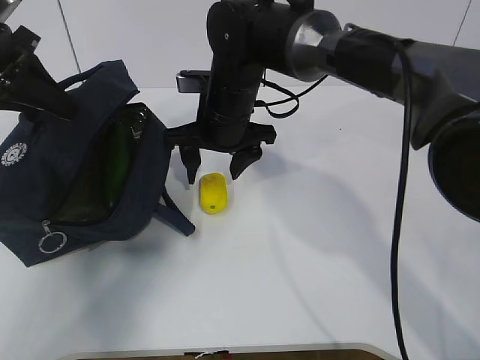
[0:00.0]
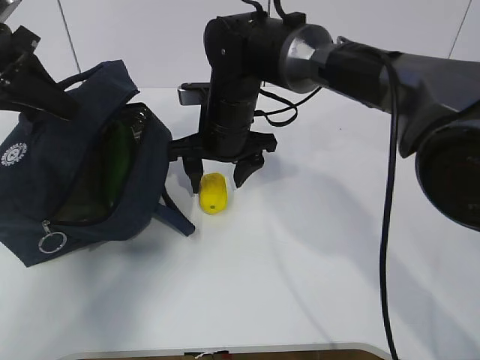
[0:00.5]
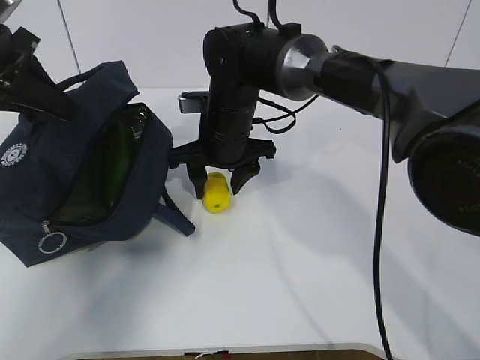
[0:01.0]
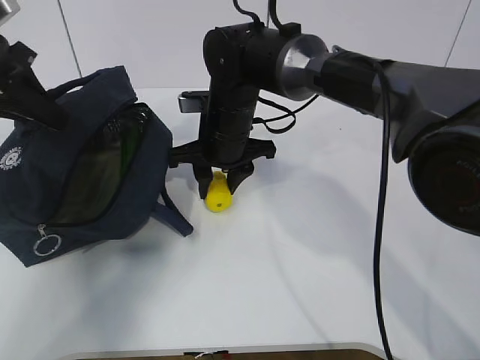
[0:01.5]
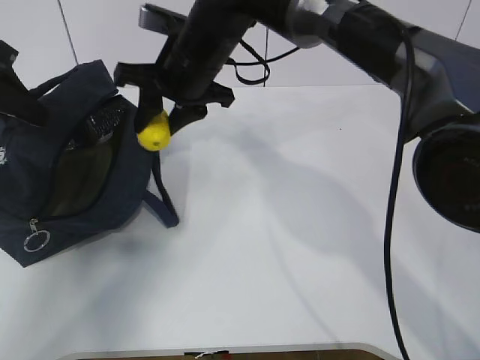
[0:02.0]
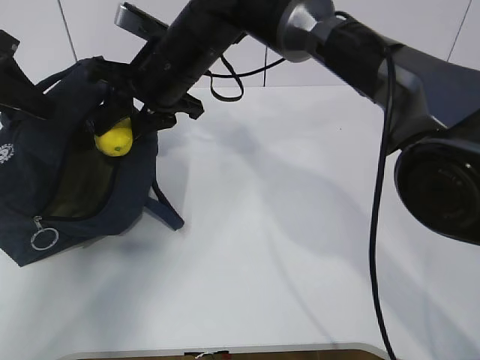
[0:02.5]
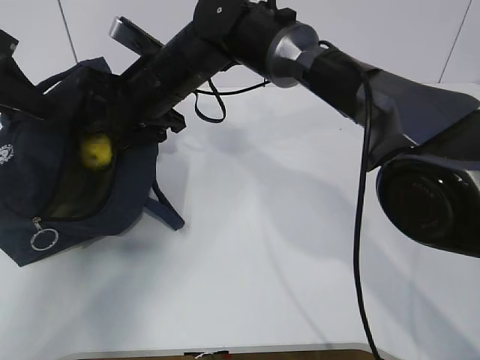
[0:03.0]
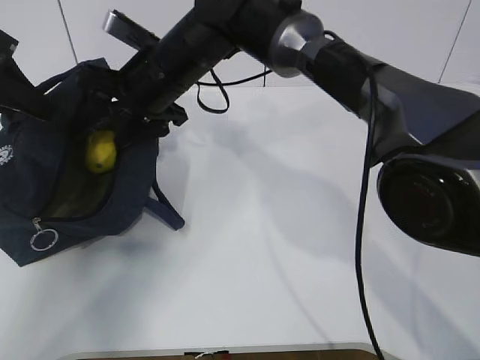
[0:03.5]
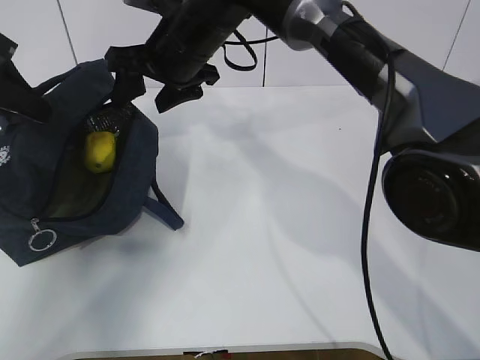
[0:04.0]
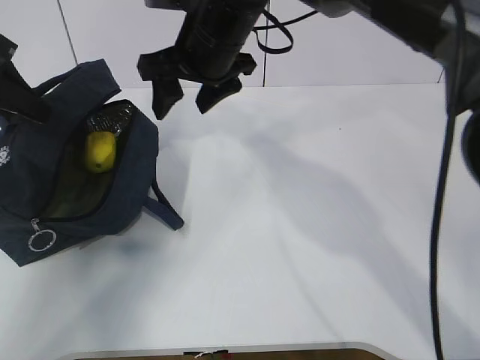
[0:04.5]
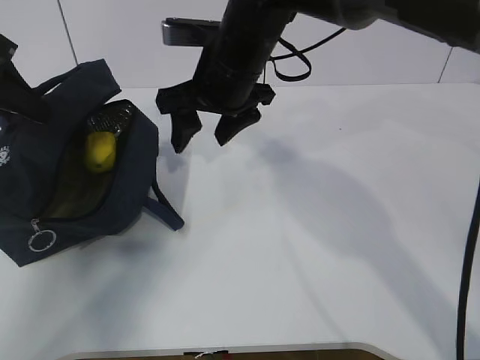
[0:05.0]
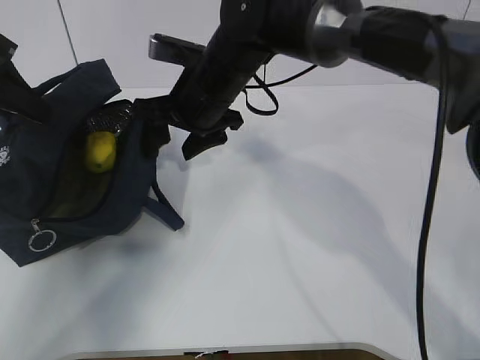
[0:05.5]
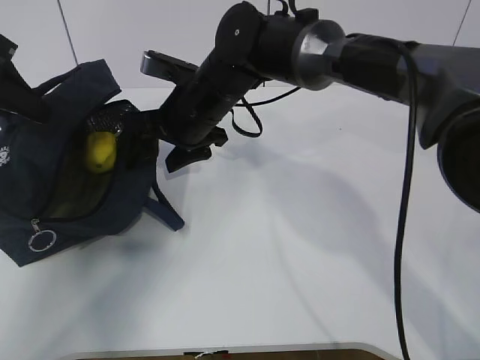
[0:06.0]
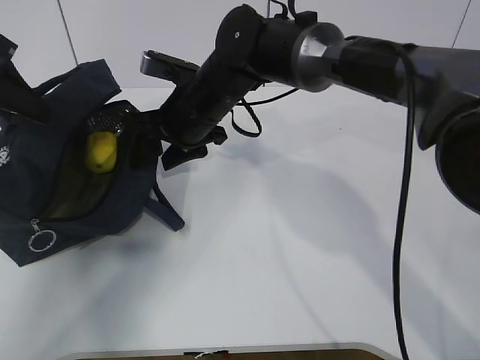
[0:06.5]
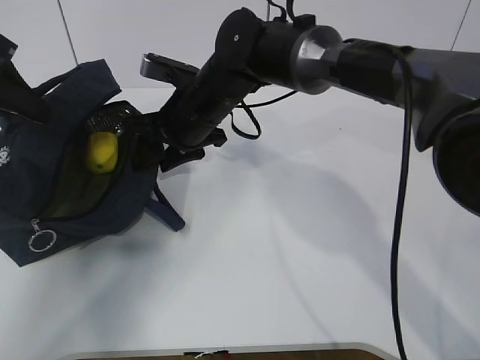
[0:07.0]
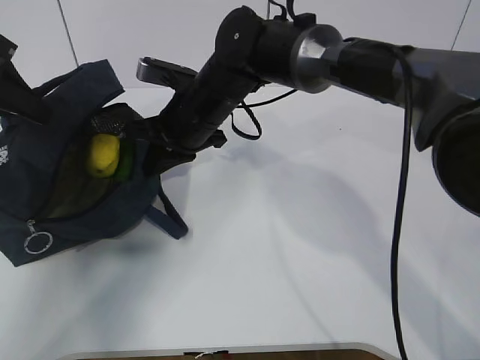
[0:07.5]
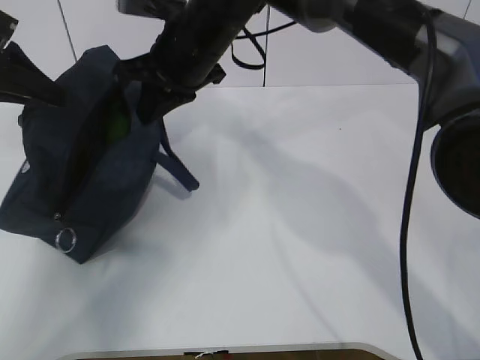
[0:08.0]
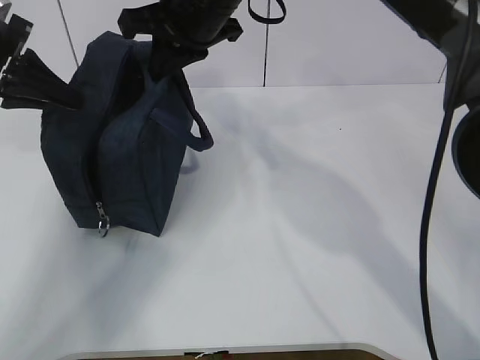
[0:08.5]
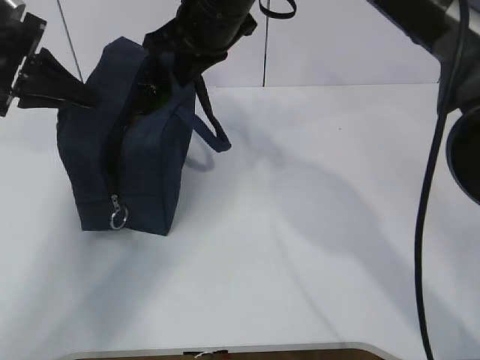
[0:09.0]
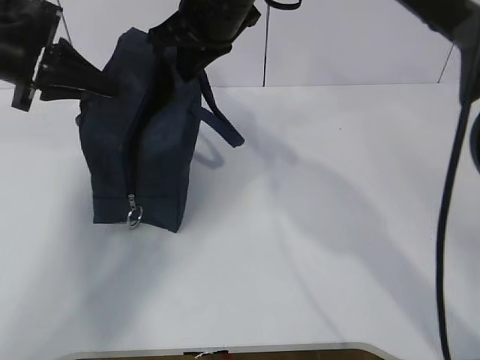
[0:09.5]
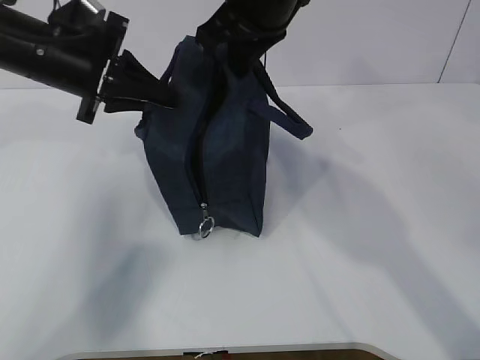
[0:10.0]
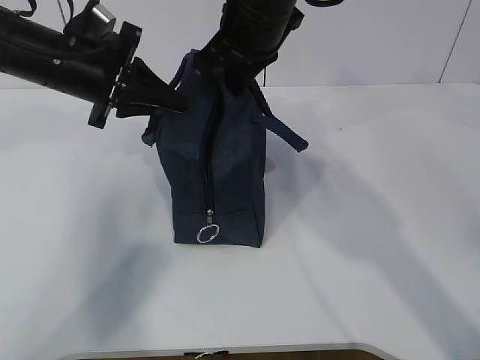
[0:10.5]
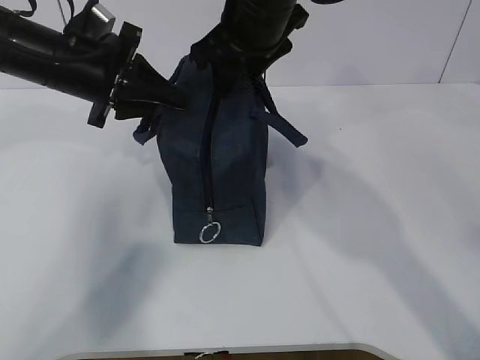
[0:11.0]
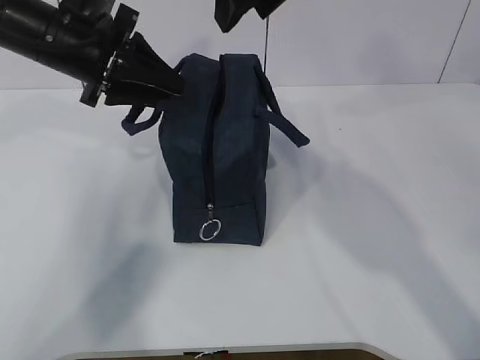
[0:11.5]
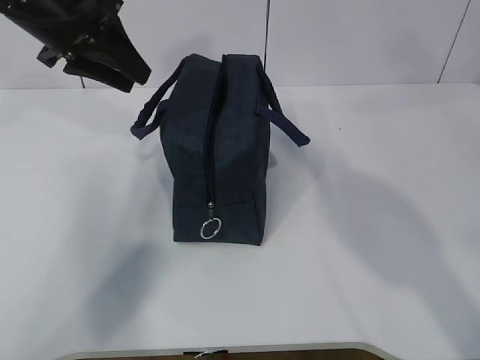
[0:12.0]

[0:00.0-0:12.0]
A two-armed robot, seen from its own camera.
Step, 0:01.5 to 0:04.5: Stand the lunch bag upright with your right hand.
0:00.0 to 0:02.0: The right gripper is displaced upward by approximately 5 cm, and closes up.
0:02.0 to 0:04.0: The right gripper opens up.
0:04.0 to 0:06.0: The right gripper is displaced downward by some 5 cm.
0:06.0 to 0:08.0: The right gripper travels upward by roughly 5 cm, and closes.
0:08.0 to 0:10.0: The right gripper moves upward and to the right, about 10 cm, while the left gripper shifts about 10 cm to the right.
0:10.0 to 0:12.0: The right gripper shifts about 10 cm upward and backward, and opens its fingers. The left gripper shifts by approximately 5 cm, and opens its fingers.

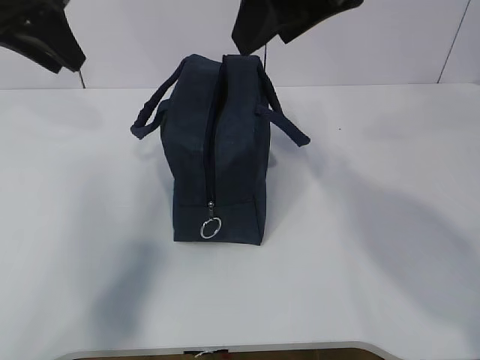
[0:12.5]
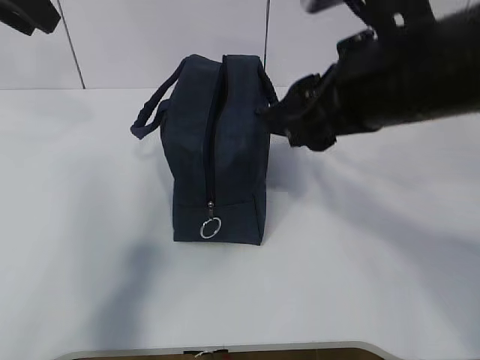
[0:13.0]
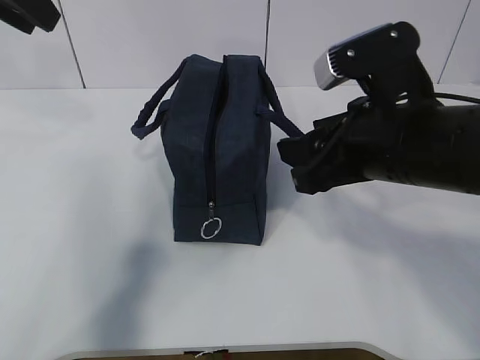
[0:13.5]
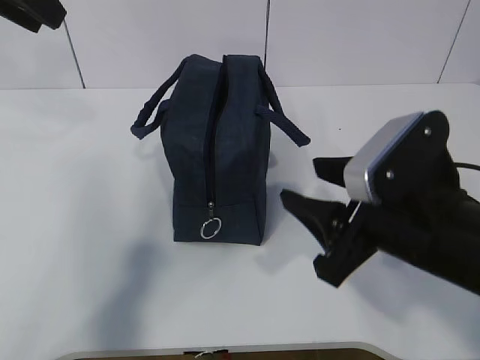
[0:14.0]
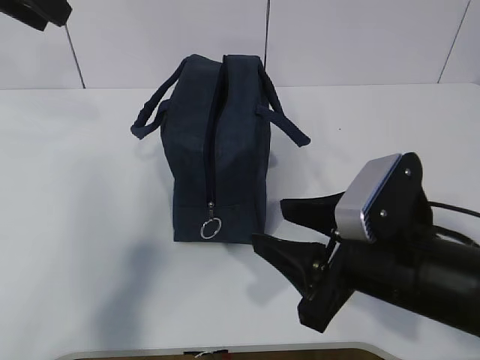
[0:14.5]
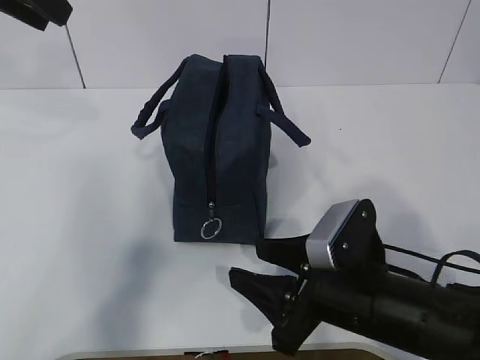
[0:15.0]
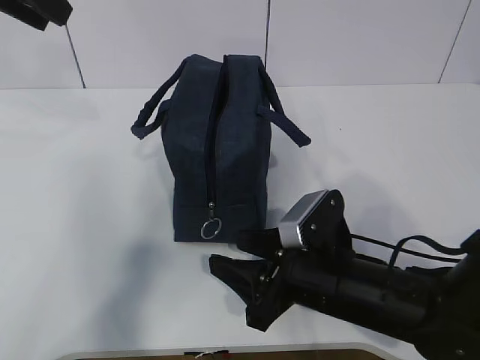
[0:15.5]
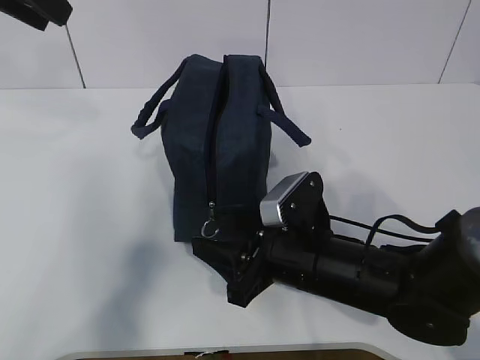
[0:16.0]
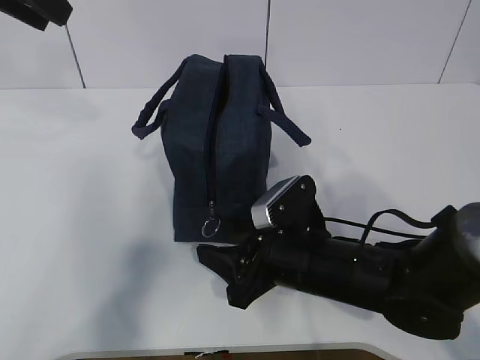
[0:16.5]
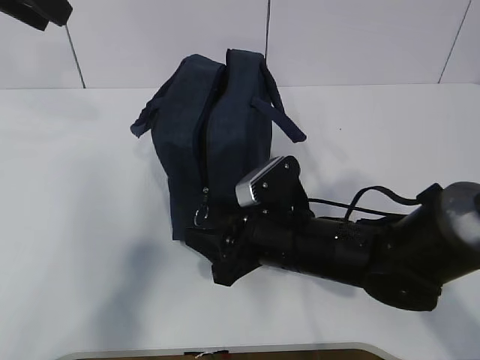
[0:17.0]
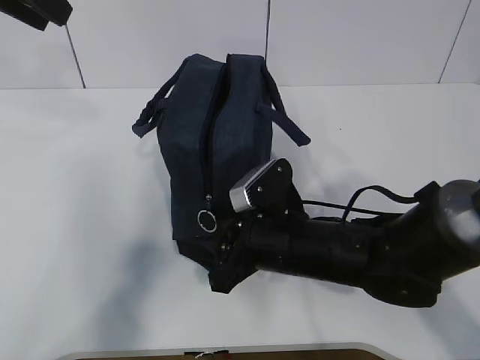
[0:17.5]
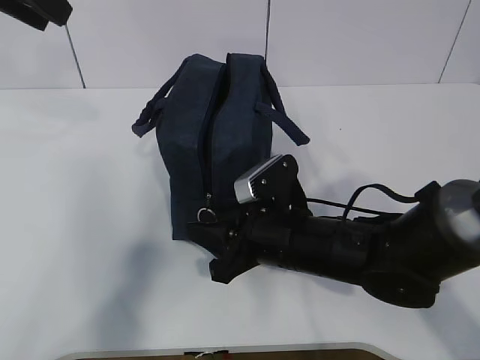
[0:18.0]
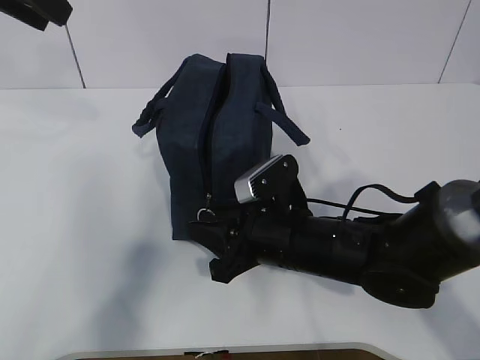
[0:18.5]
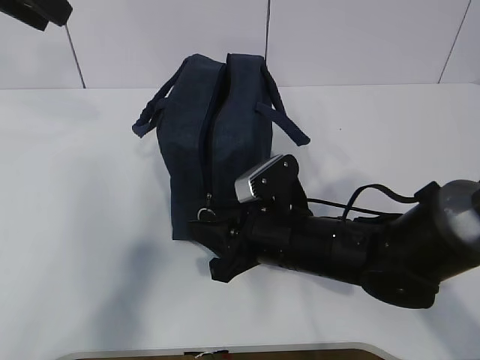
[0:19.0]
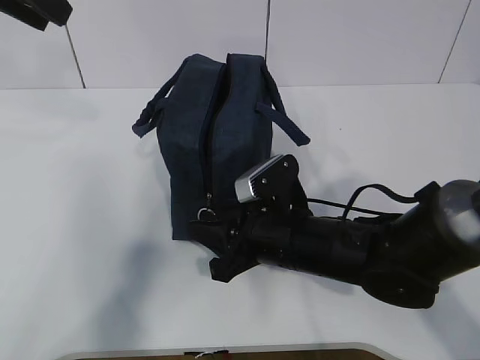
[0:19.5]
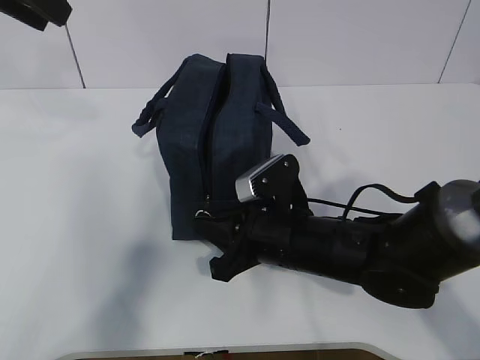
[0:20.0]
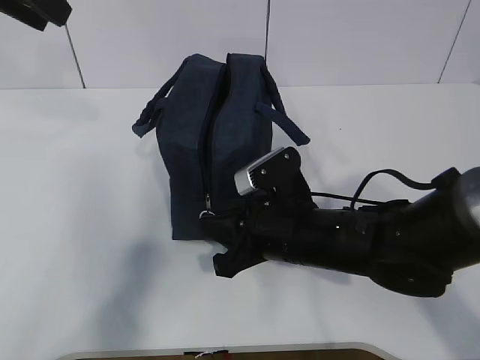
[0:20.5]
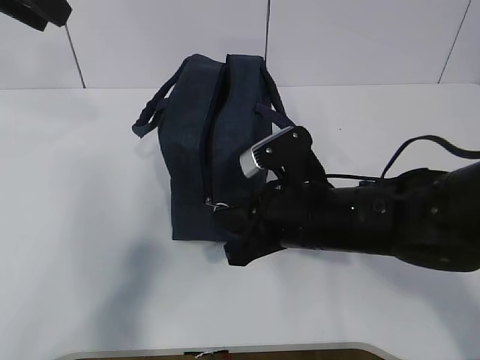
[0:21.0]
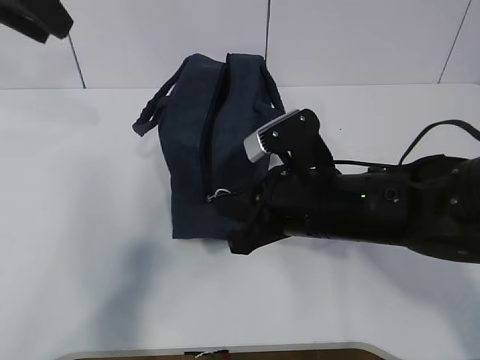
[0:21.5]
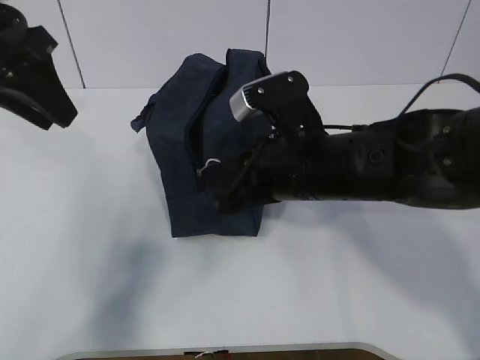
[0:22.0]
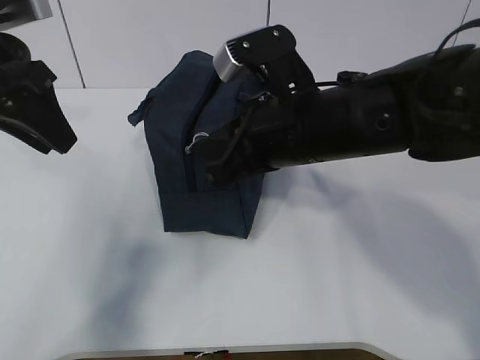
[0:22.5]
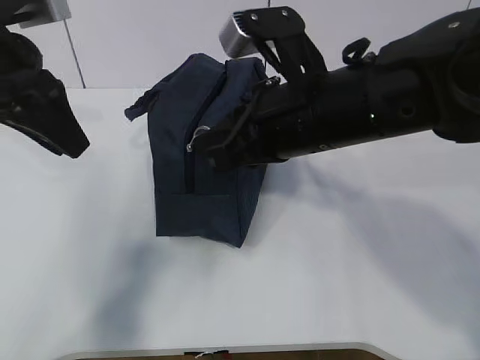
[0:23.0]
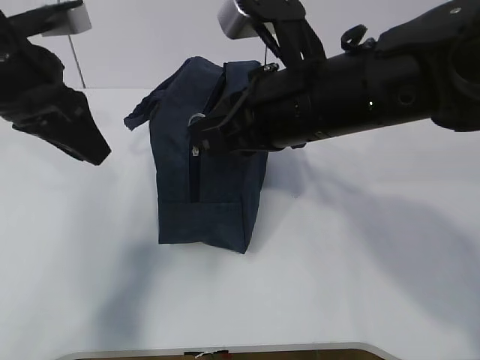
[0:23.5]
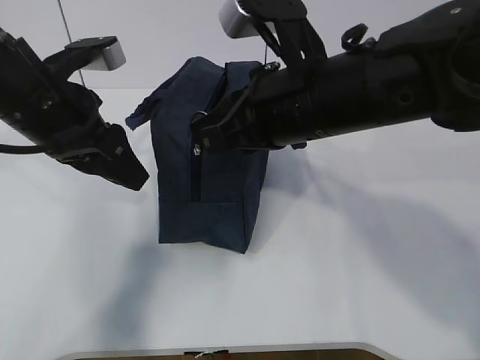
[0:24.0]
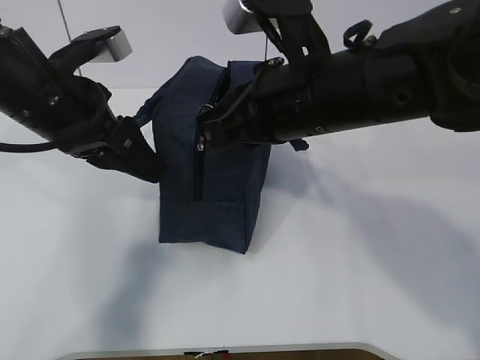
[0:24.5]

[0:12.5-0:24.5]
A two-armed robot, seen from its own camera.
0:12.5 to 0:14.5: The right gripper is displaced downward and backward by some 25 cm; the left gripper moves upward, about 5 cm.
0:14.5 to 0:16.5: The right gripper goes roughly 10 cm downward, forward and to the left.
0:16.5 to 0:18.5: The right gripper closes its fingers.
0:18.5 to 0:20.5: The right gripper closes its fingers.
0:20.5 to 0:22.5: The left gripper goes some 10 cm downward, while the right gripper moves upward, approximately 15 cm.
0:22.5 to 0:24.5: The left gripper is displaced to the right by about 5 cm.

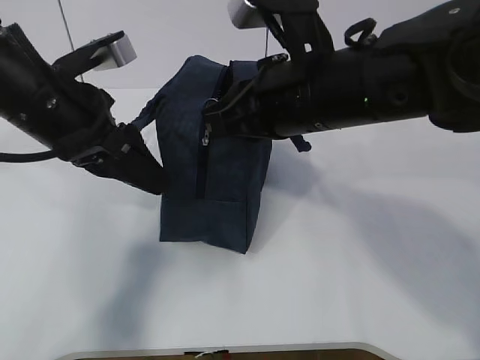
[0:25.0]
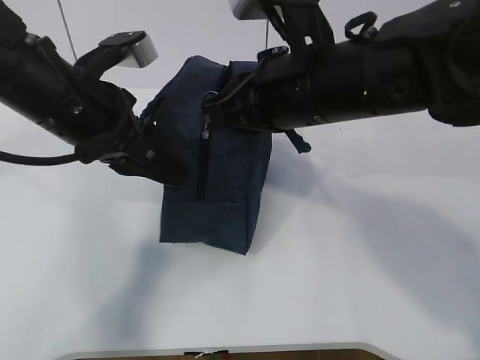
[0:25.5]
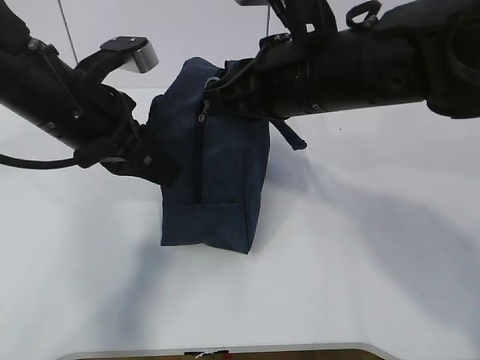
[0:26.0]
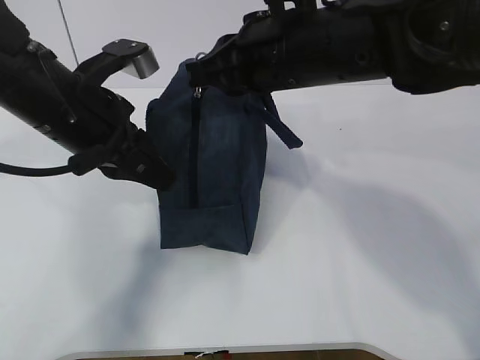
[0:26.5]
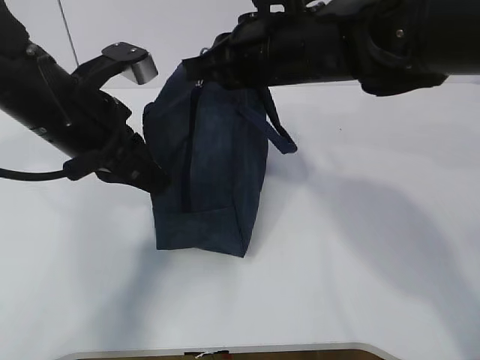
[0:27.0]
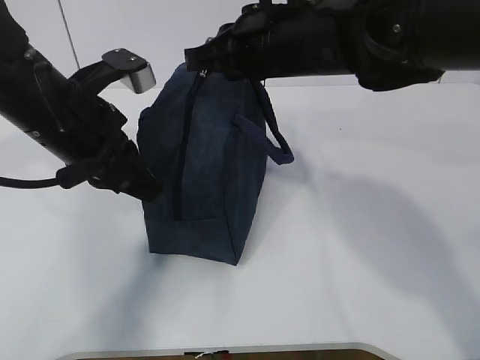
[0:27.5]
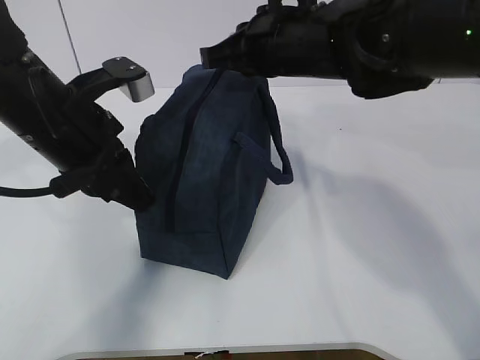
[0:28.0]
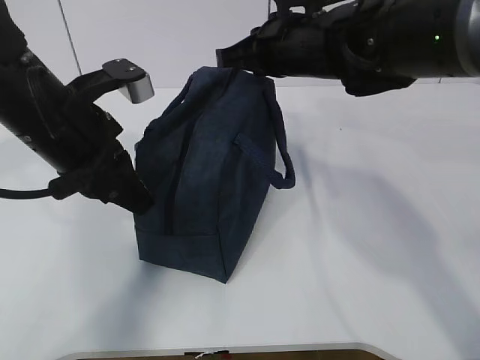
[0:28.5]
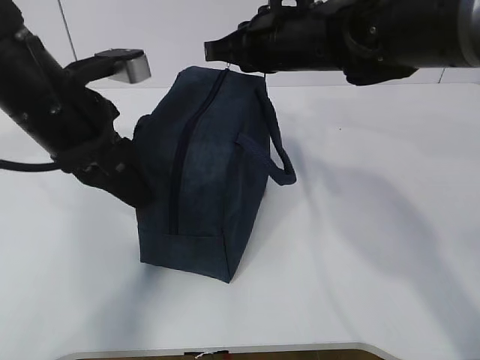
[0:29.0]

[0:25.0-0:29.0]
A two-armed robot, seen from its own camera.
0:25.0 to 0:27.0: The left gripper closes its fingers. The right gripper travels forward by roughly 5 cm.
0:27.0 to 0:29.0: The right gripper shifts by about 5 cm. Meanwhile the left gripper opens its fingers.
